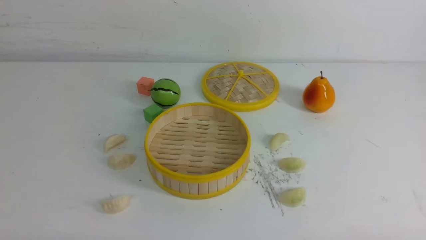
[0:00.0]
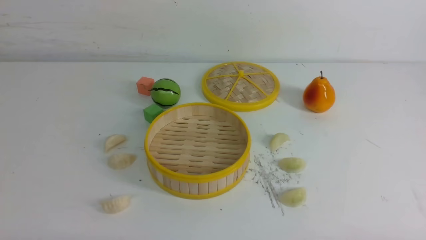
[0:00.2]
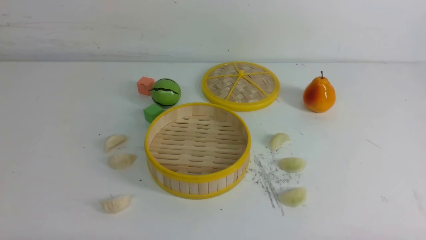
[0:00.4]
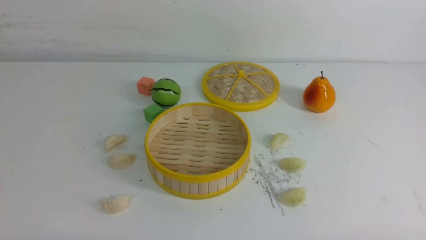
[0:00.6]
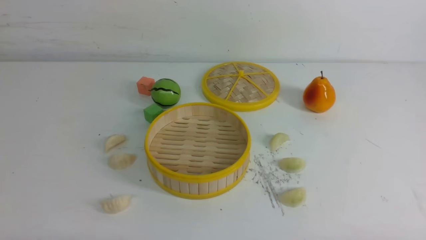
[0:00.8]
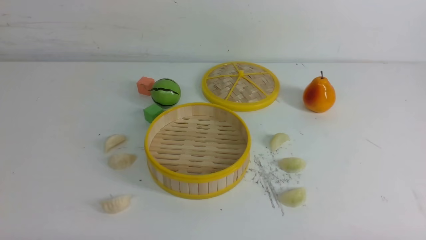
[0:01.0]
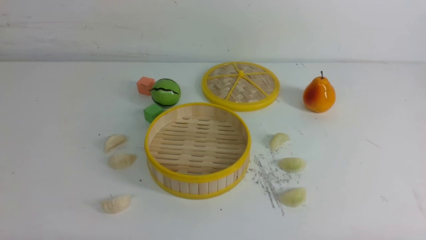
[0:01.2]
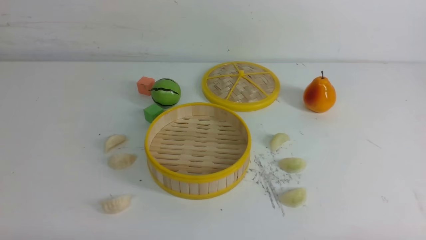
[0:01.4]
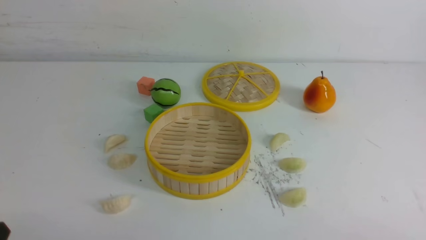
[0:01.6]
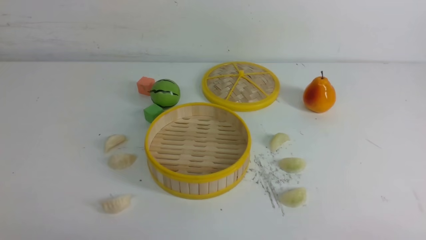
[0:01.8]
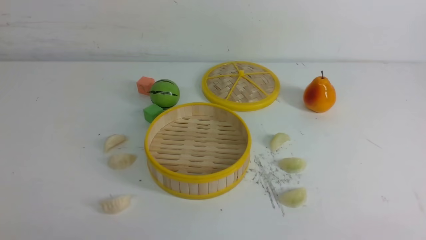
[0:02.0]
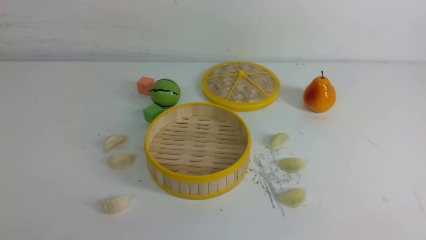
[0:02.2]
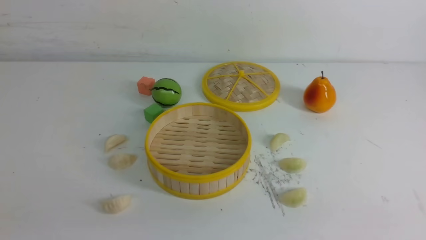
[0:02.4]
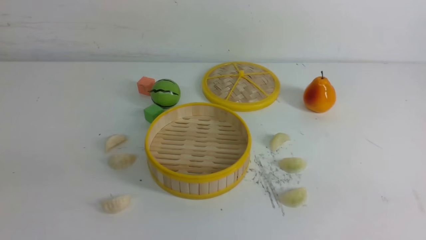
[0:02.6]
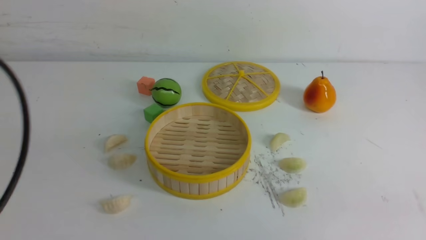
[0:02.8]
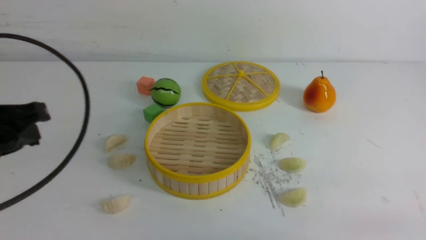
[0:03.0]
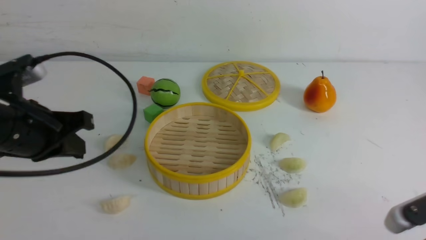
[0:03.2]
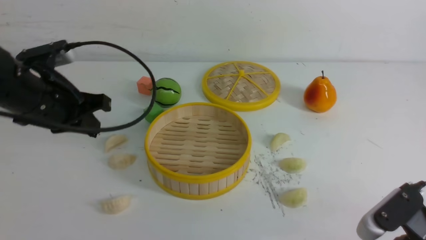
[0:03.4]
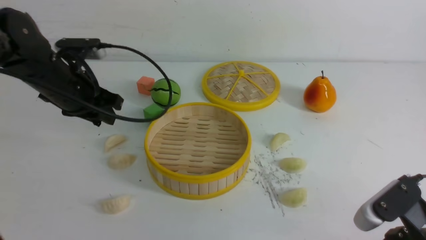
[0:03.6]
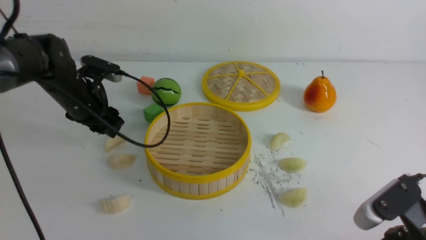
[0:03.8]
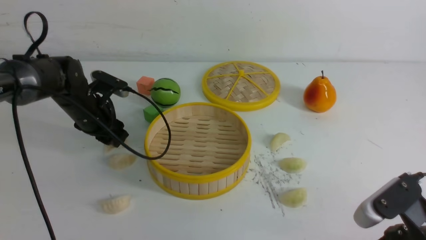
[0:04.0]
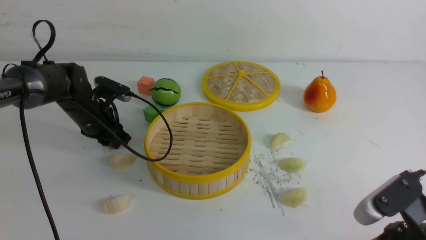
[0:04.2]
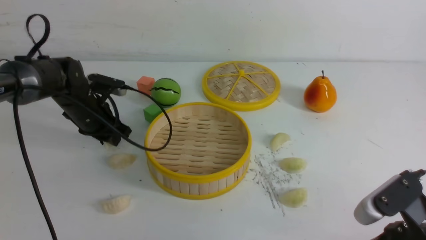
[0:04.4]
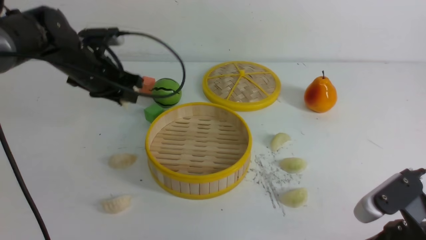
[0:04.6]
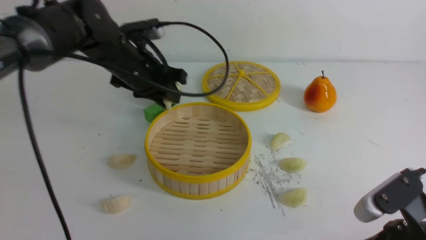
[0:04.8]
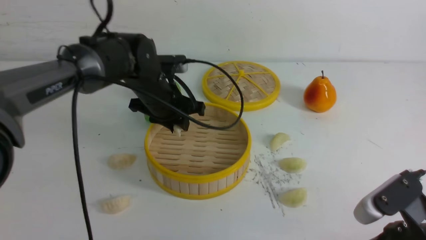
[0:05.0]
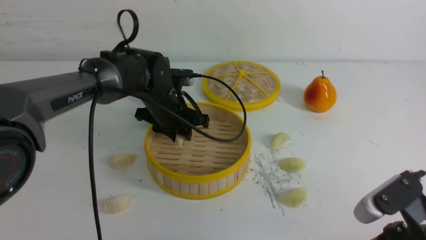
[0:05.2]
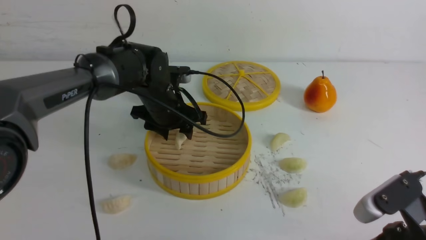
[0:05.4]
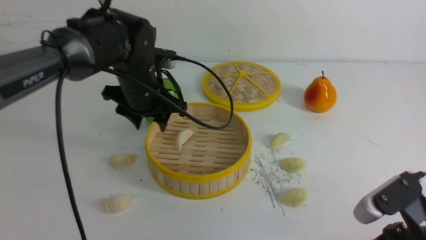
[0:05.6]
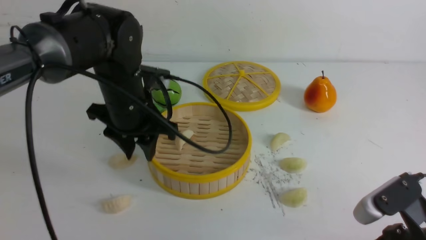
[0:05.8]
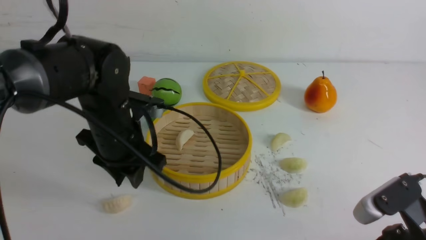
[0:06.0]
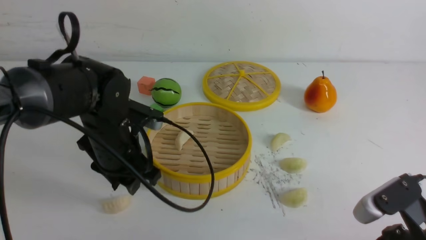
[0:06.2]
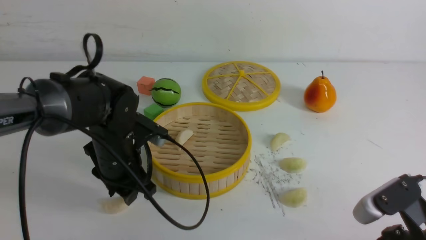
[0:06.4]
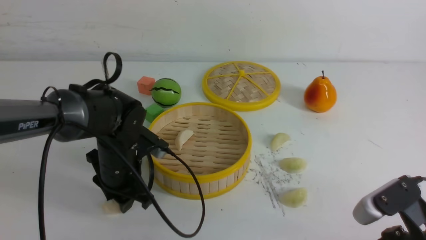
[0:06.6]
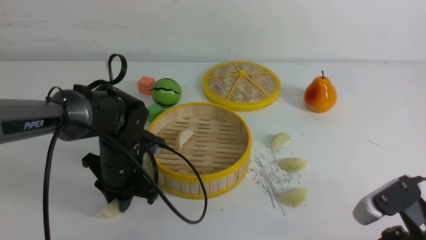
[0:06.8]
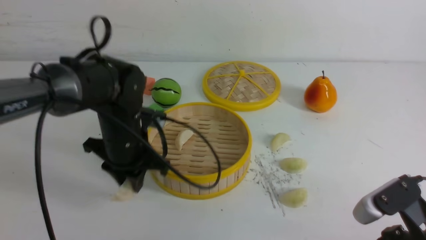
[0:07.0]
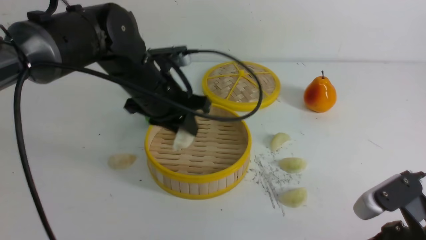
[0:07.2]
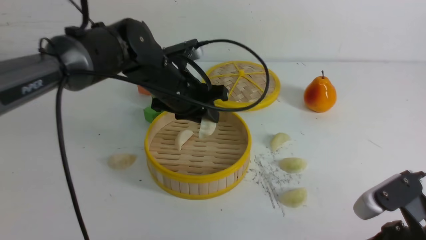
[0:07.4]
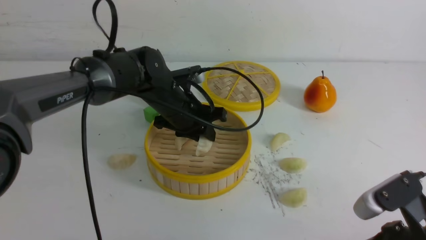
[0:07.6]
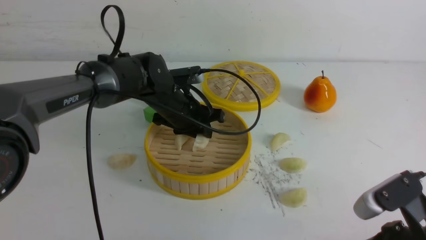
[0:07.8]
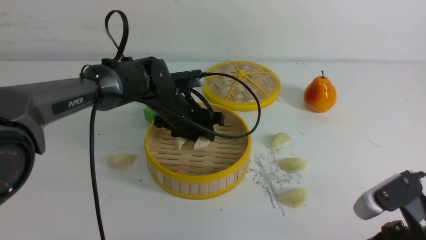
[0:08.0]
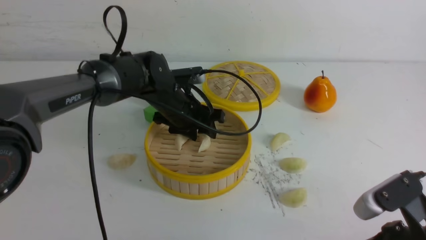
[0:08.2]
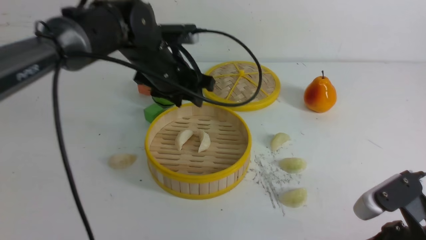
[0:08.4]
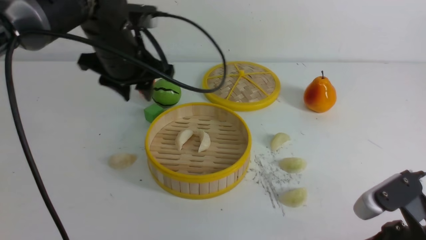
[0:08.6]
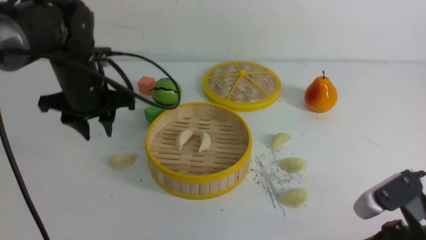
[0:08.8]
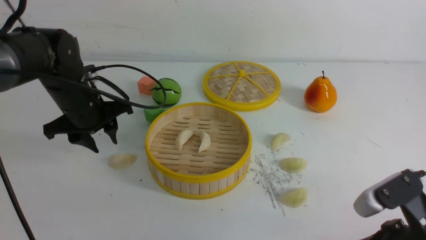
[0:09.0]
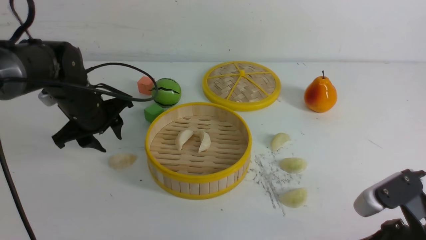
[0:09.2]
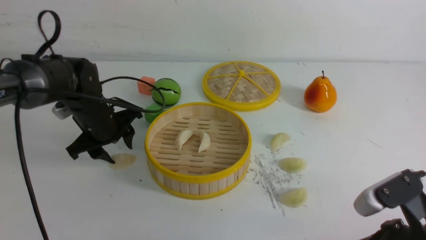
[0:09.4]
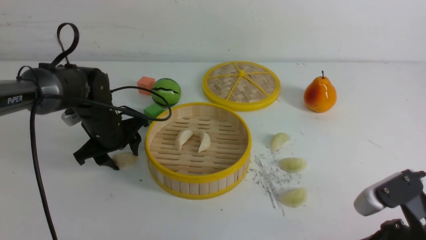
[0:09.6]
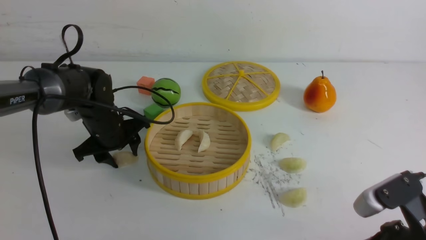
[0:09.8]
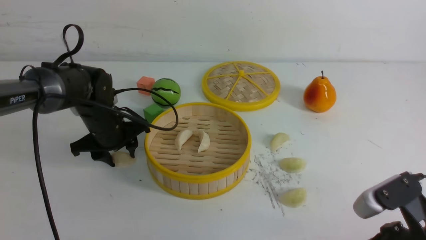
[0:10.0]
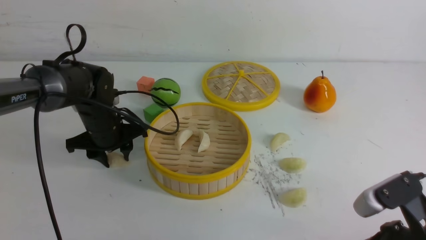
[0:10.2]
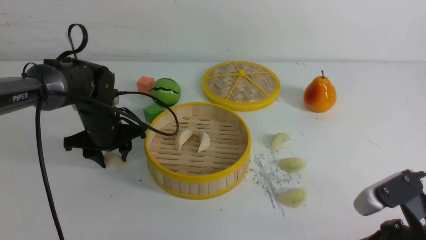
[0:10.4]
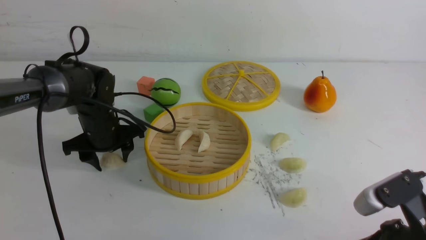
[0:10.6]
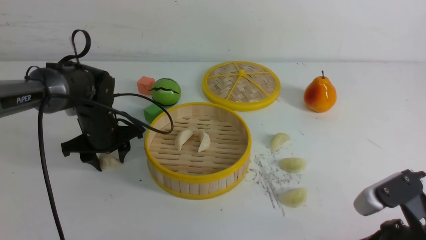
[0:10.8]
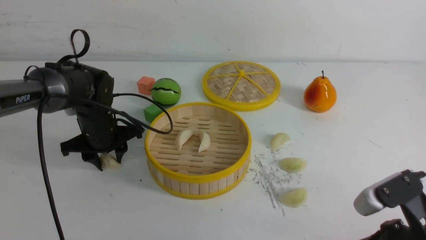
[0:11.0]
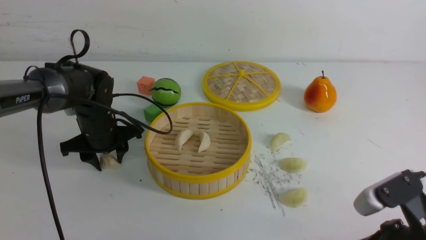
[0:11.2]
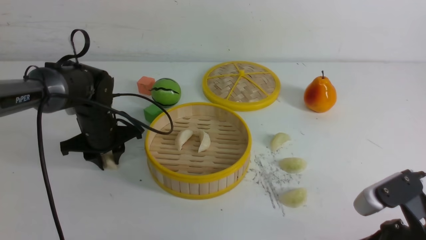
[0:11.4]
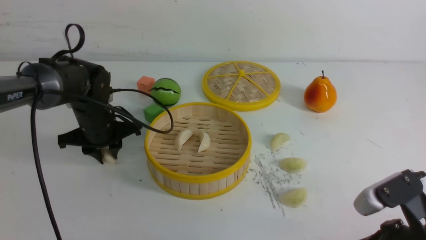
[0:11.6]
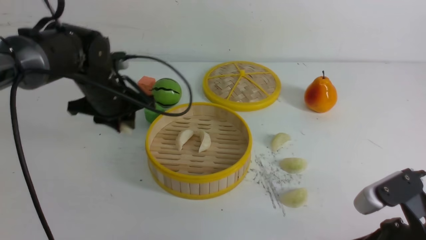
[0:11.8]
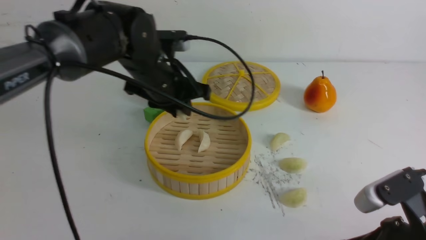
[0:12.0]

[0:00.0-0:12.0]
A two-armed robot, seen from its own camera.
Task of the whole recording: put the dumplings into the steamer on the white table.
Step, 0:00.0 to 0:04.2: use the left arm to grab a dumpling.
Step, 0:04.6 to 0:05.2: use the left arm to put the dumpling into the steamer.
Step, 0:05.6 to 0:06.8: use the left arm to grab a dumpling.
Step, 0:07.0 to 0:08.0: use the left arm to put the dumpling into the steamer.
Step, 0:08.4 to 0:11.4: use the left arm to grab a dumpling.
0:01.6 to 0:03.0: The left gripper travels forward and upward by roughly 20 cm, and closes.
0:03.0 to 0:04.4: The right gripper travels to the left by about 5 cm. The left gripper goes some 25 cm forward and downward, and opens.
0:04.4 to 0:06.0: The left gripper goes about 15 cm backward and to the right.
0:06.0 to 0:07.6: The left gripper moves forward and to the right, about 10 cm.
0:07.6 to 0:09.0: The left gripper moves to the left, roughly 15 cm, and opens up.
0:09.0 to 0:10.4: The left gripper shifts some 5 cm downward.
0:10.4 to 0:12.0: The left gripper travels to the right and upward by some 15 cm, and closes up.

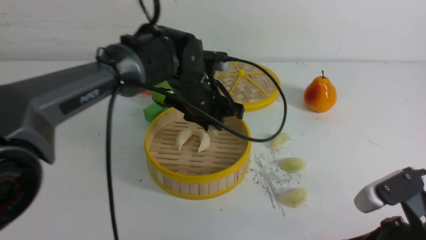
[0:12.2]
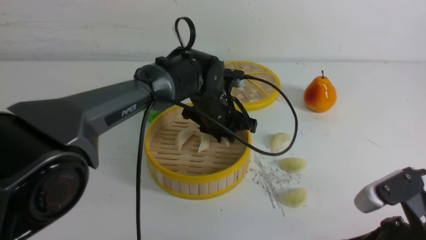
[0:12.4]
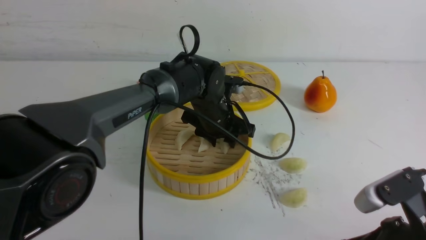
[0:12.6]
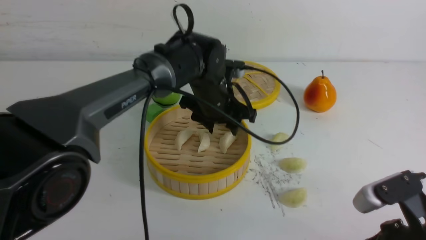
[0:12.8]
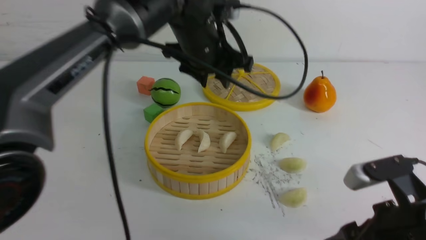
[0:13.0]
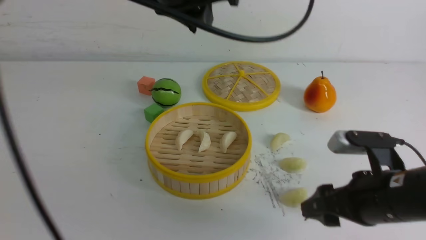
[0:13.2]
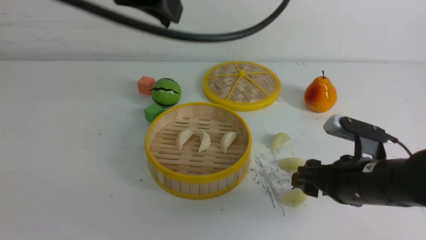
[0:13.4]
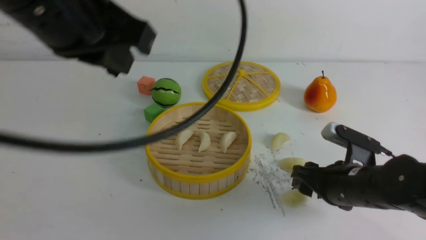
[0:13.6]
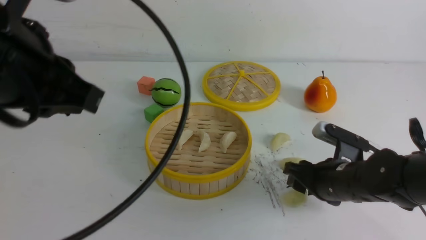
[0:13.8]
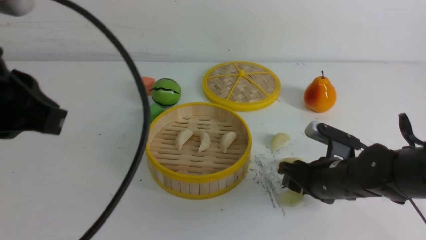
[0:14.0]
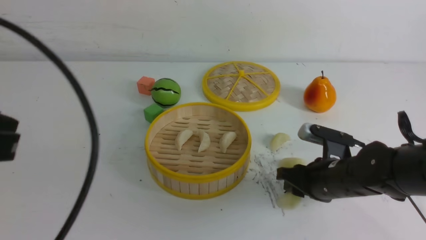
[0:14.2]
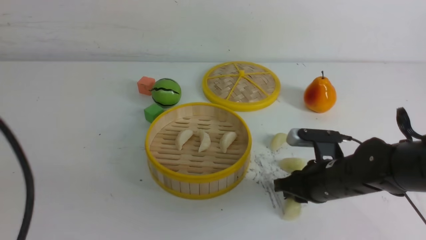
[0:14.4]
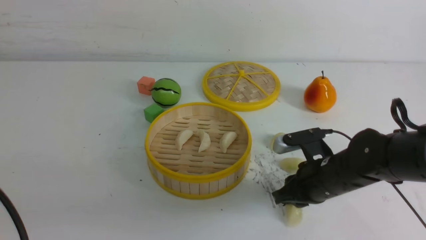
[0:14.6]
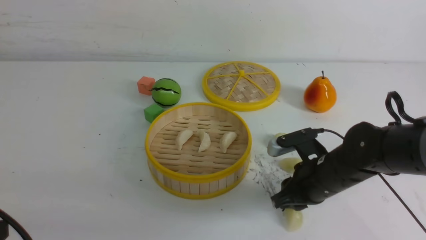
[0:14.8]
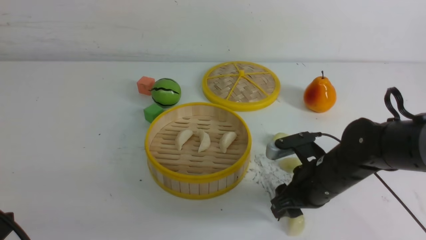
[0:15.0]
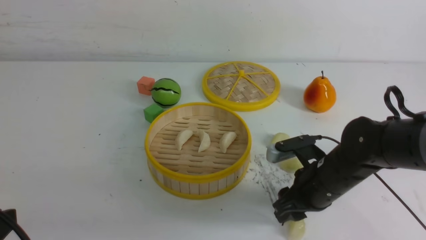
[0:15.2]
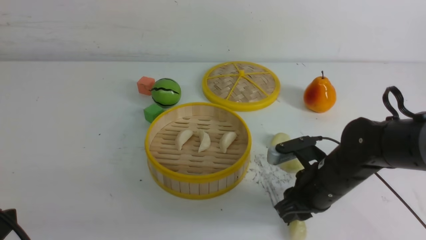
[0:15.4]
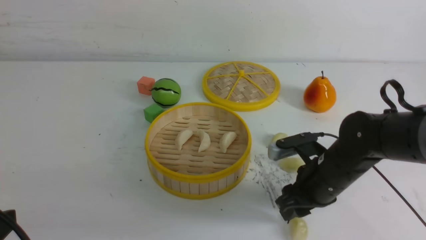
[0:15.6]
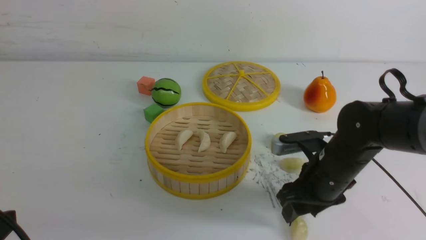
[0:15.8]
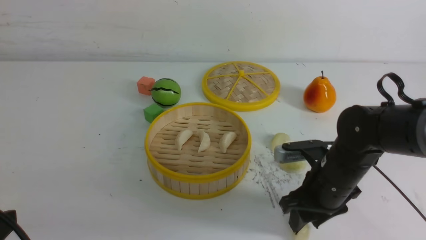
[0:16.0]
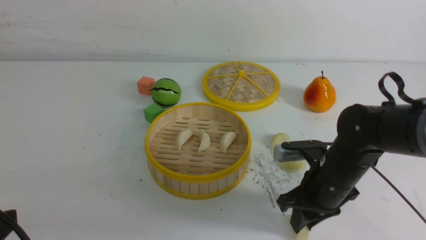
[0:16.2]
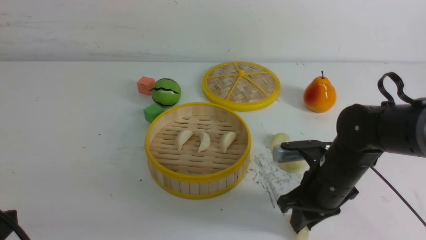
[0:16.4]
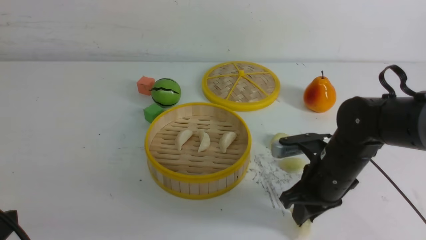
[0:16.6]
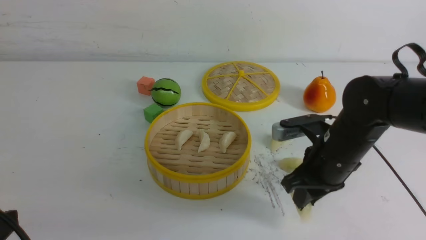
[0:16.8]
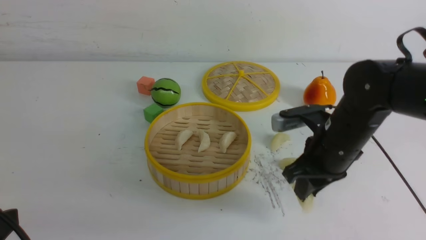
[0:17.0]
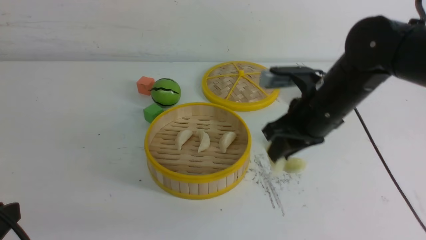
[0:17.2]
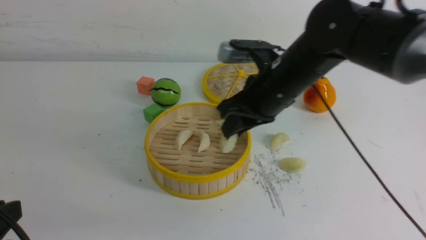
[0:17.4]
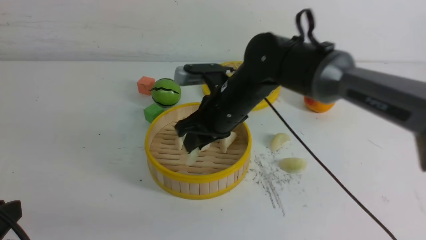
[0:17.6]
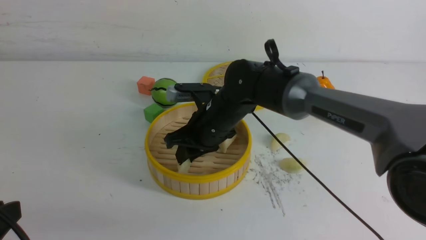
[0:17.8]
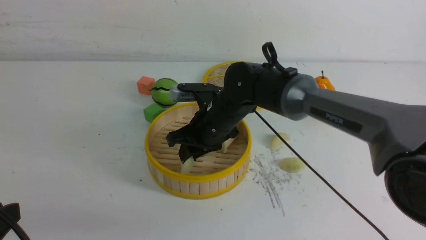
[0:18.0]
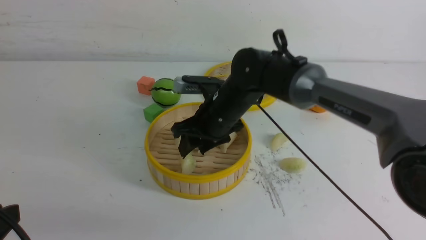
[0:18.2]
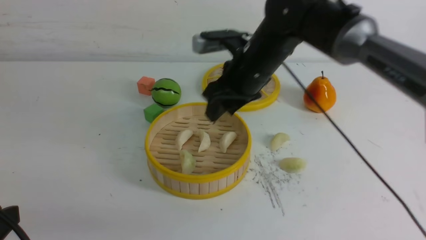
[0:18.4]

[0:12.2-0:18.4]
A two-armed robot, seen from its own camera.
Task of the whole recording: put the dumplings into the steamer on the white table.
Step, 0:12.8 to 0:16.4: use the right arm to grab a dumpling.
Step, 0:16.6 to 0:18.0: use the right arm to put the dumpling into the steamer.
0:12.2 to 0:13.8: The left gripper is displaced backward, upward and to the left by approximately 30 cm, and opens and closes again. Meanwhile the right gripper travels forward and downward by approximately 15 cm, and opens up.
0:13.8 to 0:15.4: The left gripper goes roughly 20 cm downward, backward and to the left.
0:15.4 to 0:16.8: The right gripper travels upward by roughly 5 cm.
0:16.8 to 0:18.4: The right gripper heads forward, to the left and upward, covering some 15 cm, and opens its fingers.
